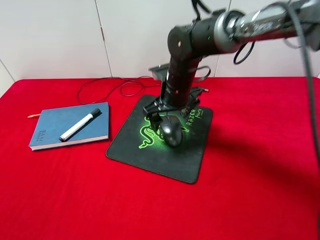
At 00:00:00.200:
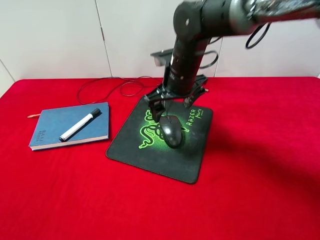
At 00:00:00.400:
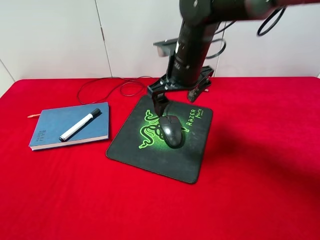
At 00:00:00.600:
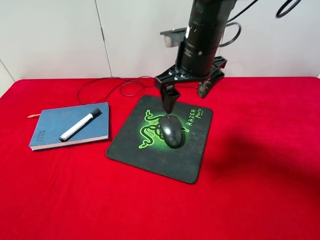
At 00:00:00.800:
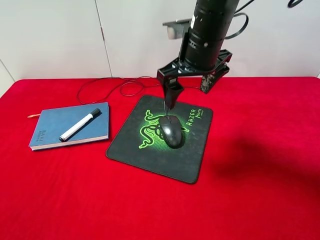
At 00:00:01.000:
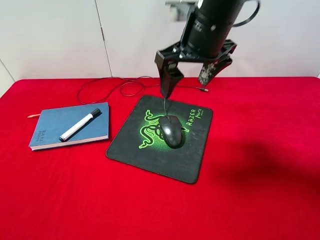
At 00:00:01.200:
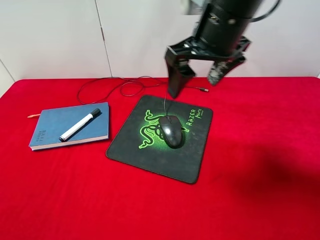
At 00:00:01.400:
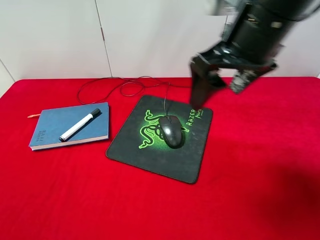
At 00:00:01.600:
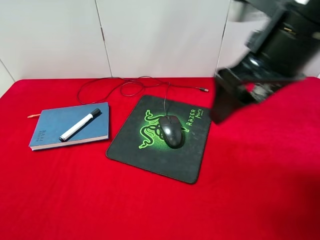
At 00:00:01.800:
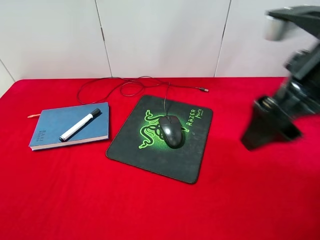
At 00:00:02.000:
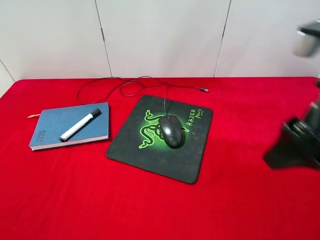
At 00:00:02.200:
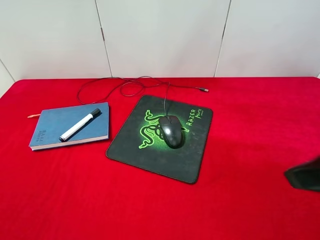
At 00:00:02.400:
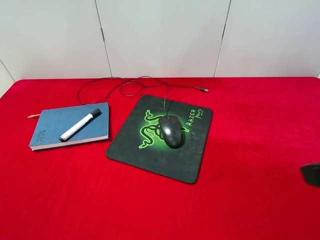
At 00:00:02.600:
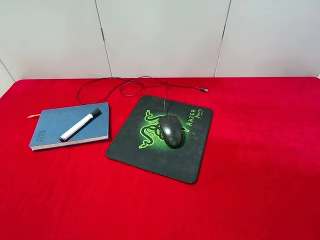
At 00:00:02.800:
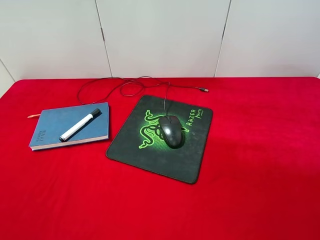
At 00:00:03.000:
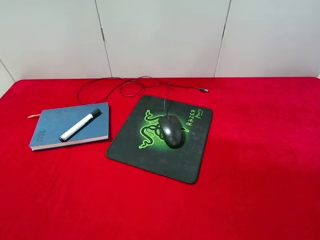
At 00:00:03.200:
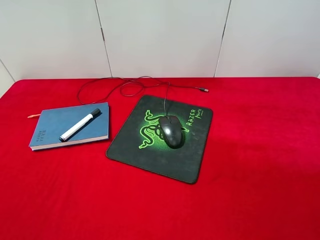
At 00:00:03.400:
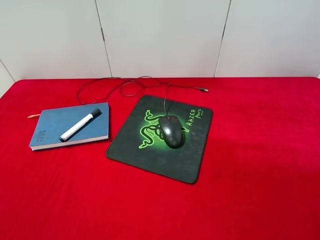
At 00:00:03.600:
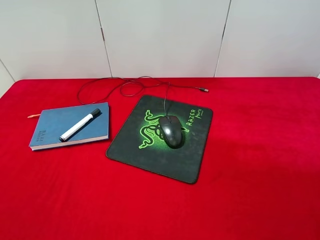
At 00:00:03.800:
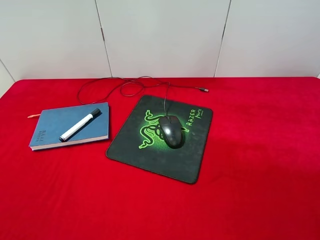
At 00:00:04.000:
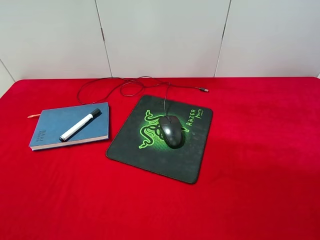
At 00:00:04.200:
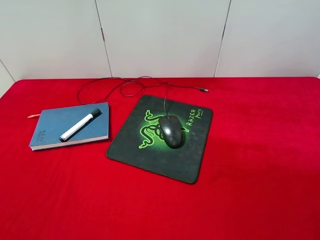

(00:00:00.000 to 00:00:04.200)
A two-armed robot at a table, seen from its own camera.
00:00:00.000 - 00:00:01.400: The right gripper moves upward, backward and to the right, some 25 cm.
00:00:01.400 - 00:00:02.800: The right gripper shifts some 25 cm backward and to the right.
